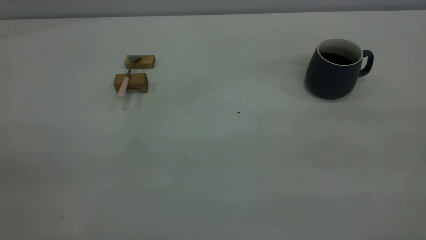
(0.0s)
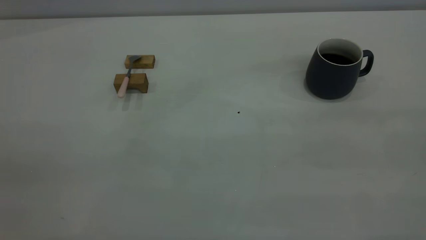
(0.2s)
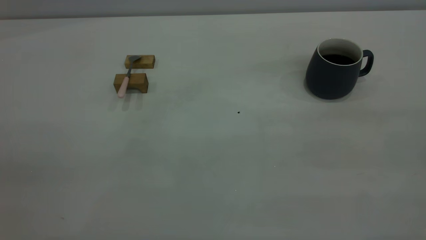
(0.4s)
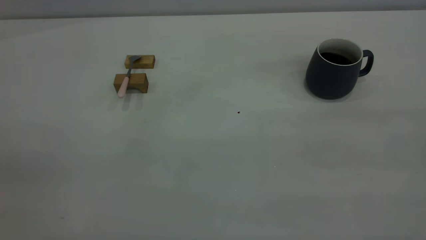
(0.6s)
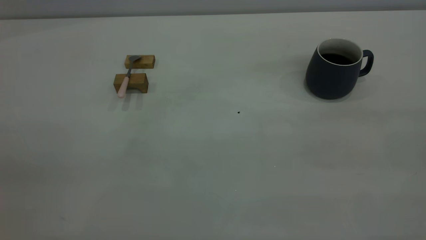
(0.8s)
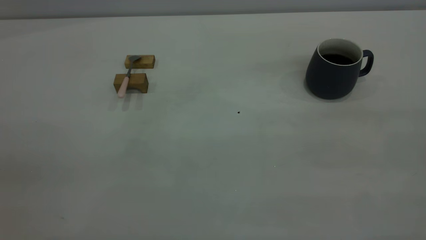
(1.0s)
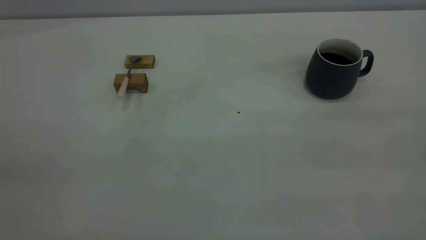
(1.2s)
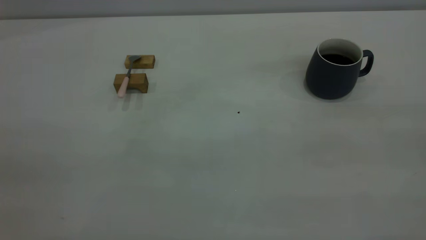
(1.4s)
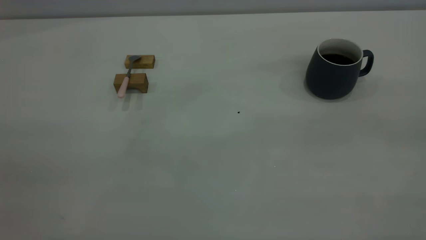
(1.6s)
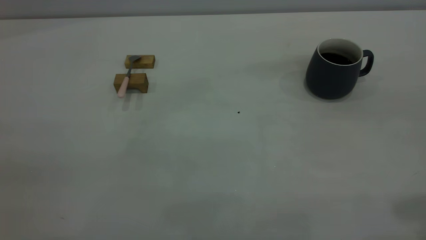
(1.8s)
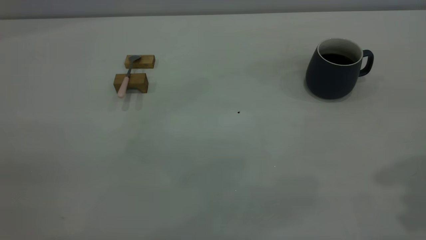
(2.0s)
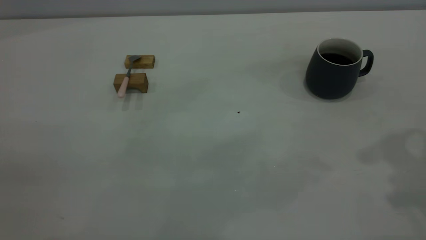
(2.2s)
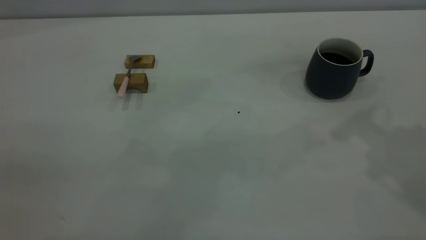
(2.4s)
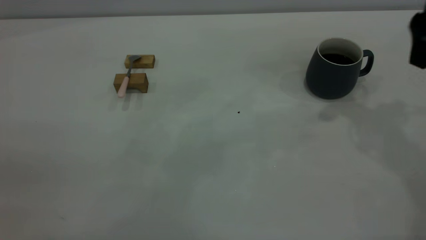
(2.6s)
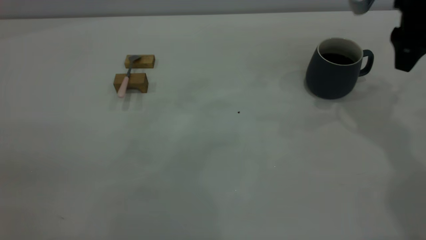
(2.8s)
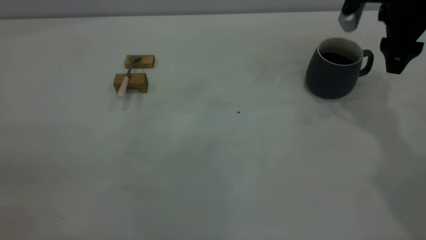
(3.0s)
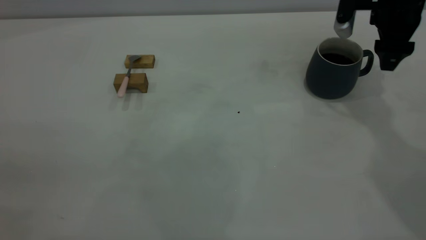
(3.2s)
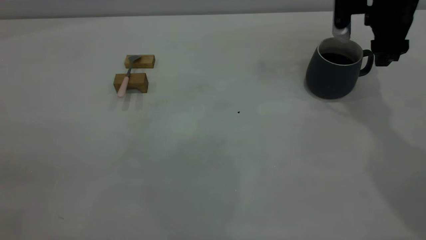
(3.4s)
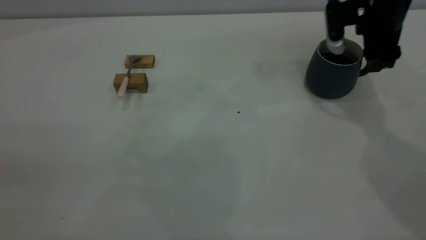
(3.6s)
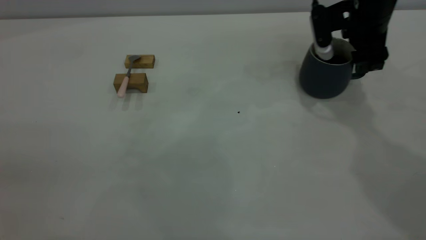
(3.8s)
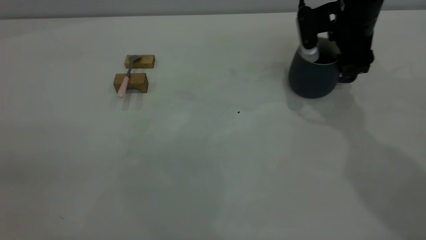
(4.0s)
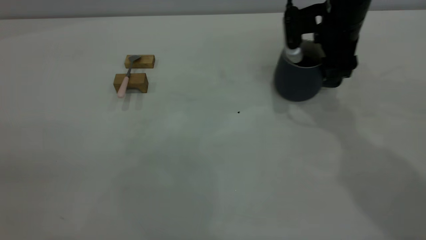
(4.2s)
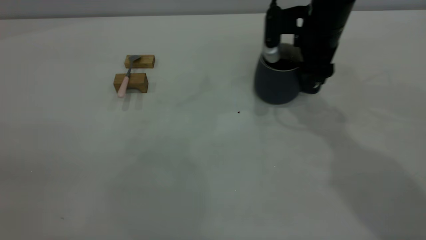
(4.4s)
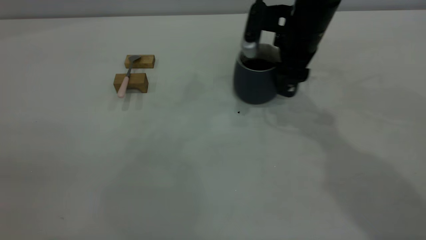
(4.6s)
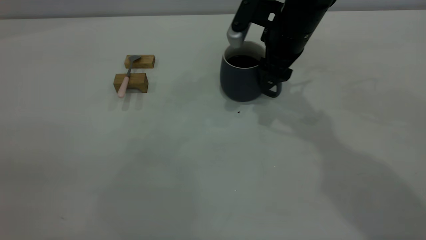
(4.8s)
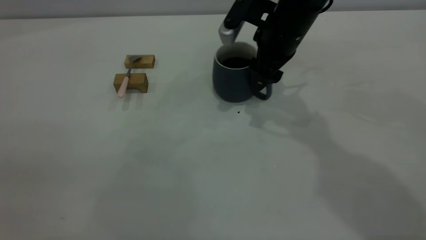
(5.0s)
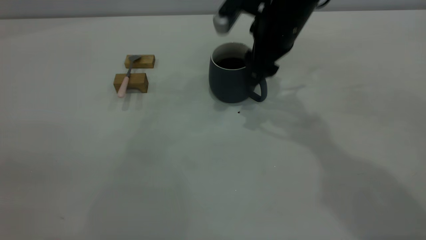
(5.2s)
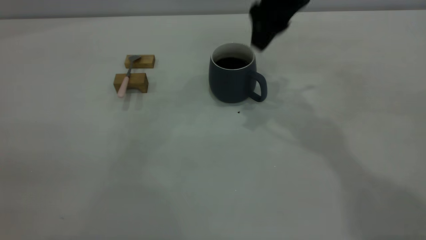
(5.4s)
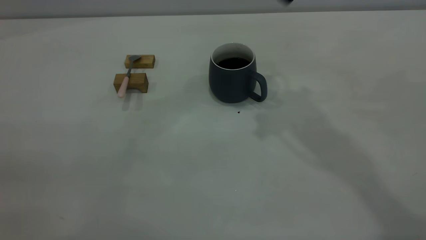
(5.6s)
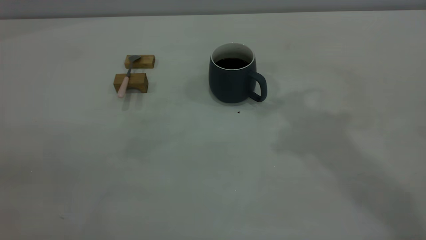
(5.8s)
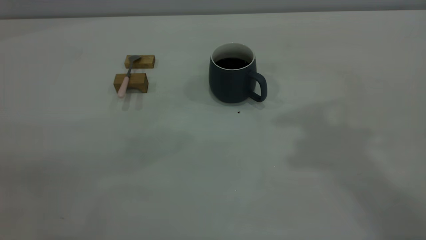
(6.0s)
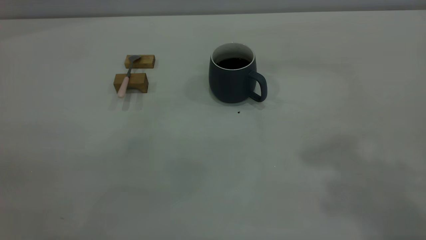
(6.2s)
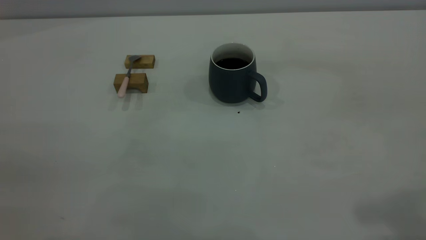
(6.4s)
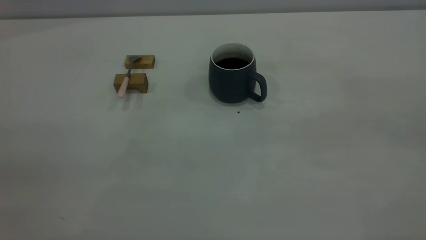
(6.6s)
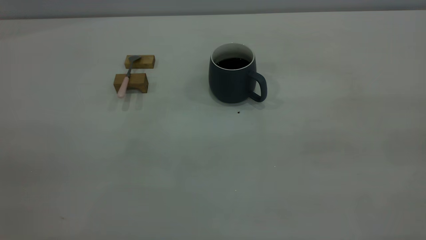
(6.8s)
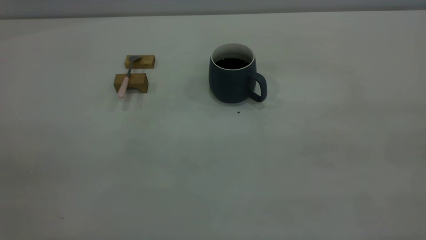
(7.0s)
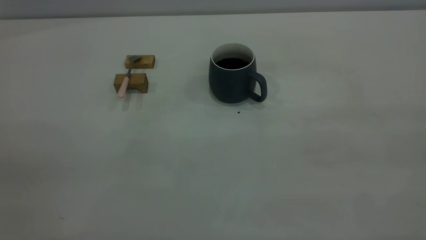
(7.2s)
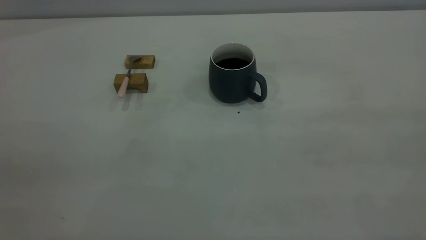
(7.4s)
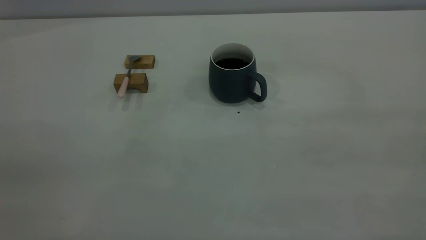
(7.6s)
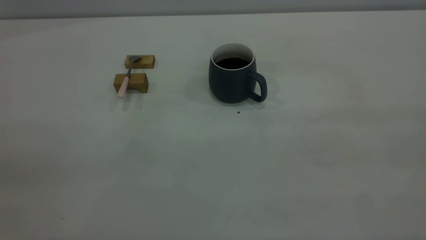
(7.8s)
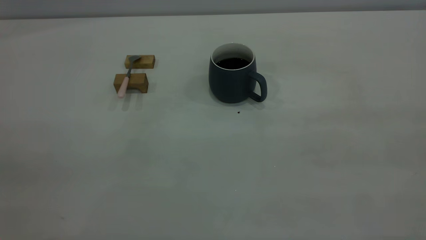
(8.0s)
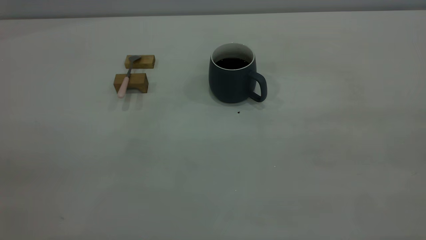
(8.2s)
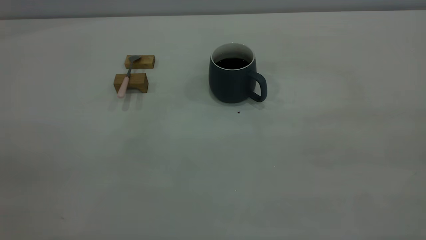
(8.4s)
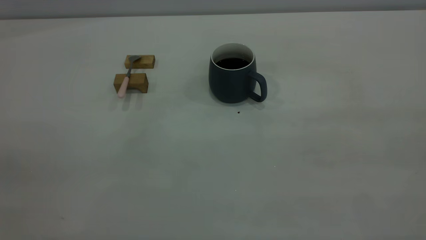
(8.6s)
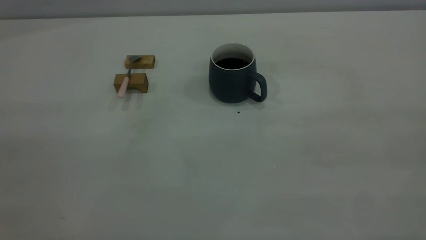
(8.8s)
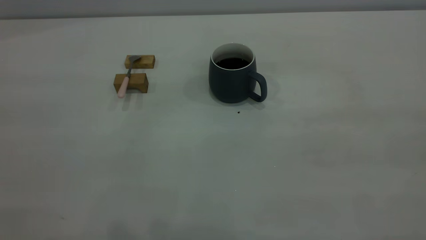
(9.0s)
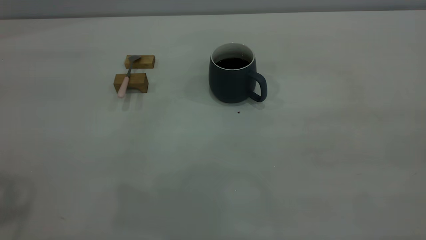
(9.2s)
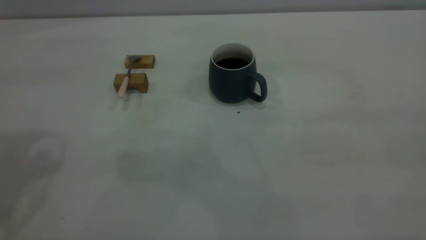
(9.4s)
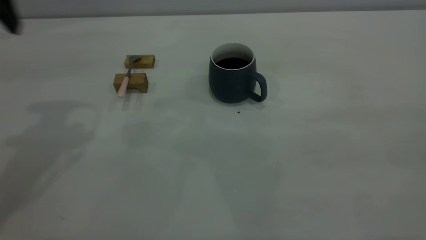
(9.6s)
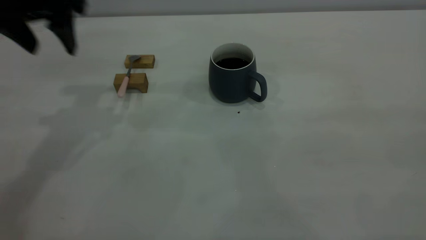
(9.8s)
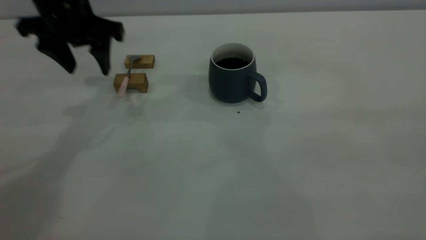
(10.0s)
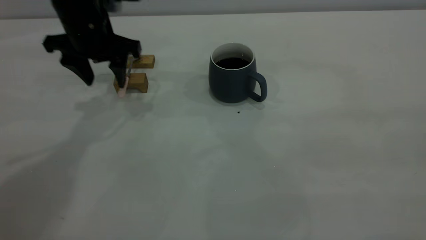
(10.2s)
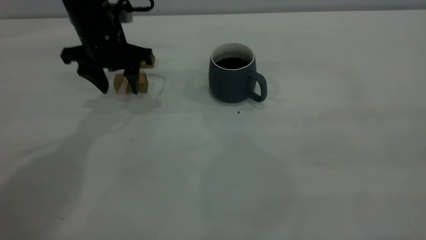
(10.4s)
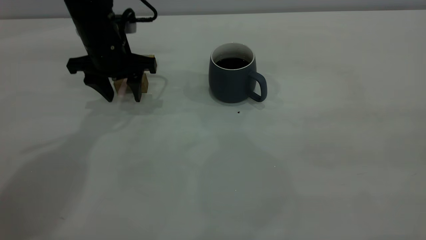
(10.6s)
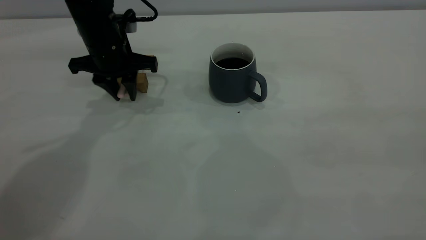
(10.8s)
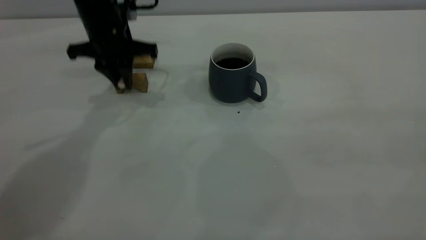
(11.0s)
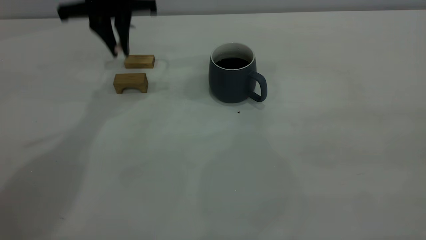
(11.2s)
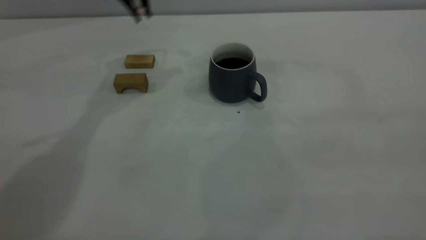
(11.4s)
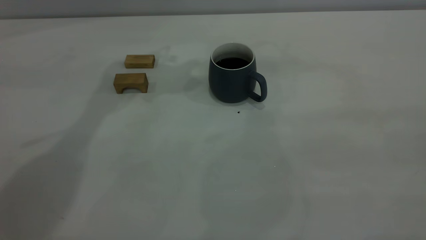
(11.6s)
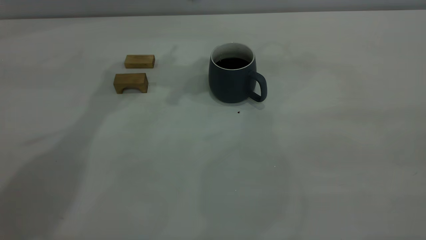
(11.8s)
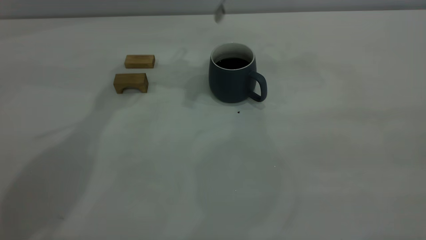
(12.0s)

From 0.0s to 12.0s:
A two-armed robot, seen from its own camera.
Step, from 0.0s to 5.2s: Move the cup with coffee to the center of view.
Step, from 5.4s to 11.0s: Pick up the spoon.
From 1.6s to 3.0s: The right gripper travels forward and downward by about 40 cm.
From 3.0s to 4.4s: The right gripper heads to the left, covering roughly 10 cm.
From 4.4s to 6.0s: The right gripper is displaced upward and backward by approximately 35 cm.
From 9.0s to 10.4s: The left gripper travels forward and downward by approximately 40 cm.
From 10.4s to 12.0s: The left gripper goes approximately 15 cm upward, to the right and forward, and closes its fingers.

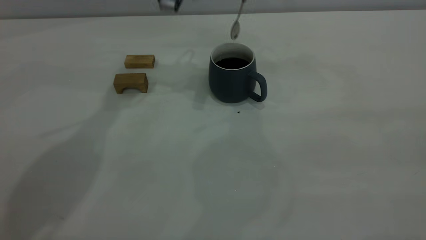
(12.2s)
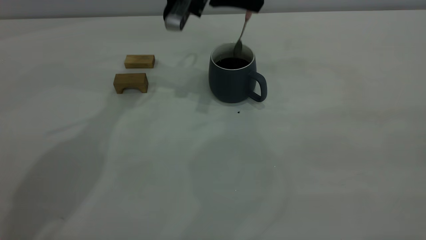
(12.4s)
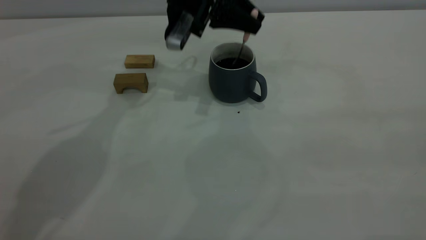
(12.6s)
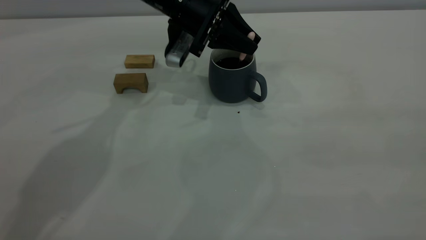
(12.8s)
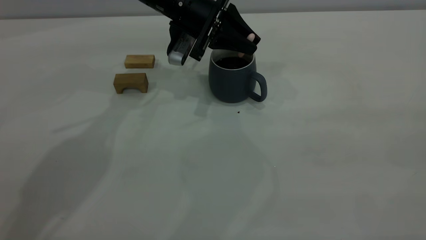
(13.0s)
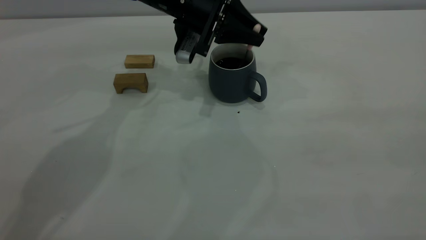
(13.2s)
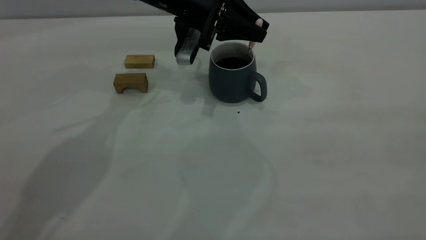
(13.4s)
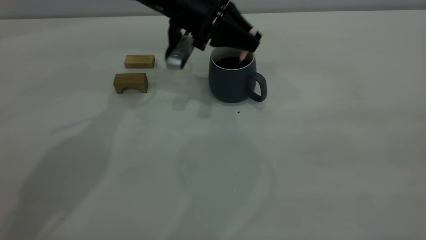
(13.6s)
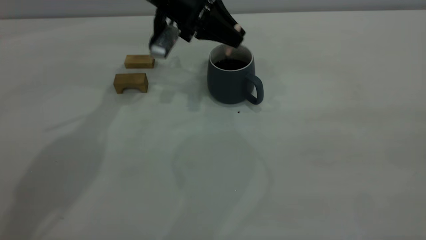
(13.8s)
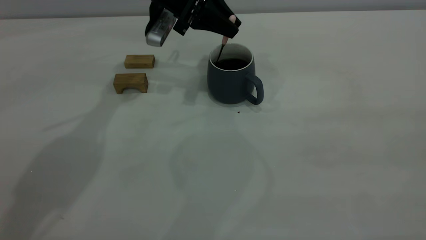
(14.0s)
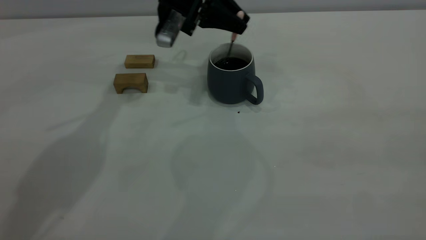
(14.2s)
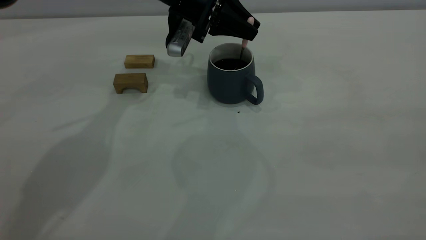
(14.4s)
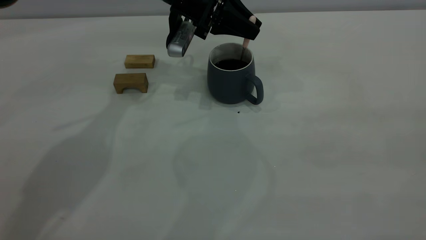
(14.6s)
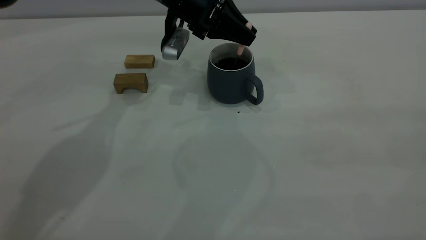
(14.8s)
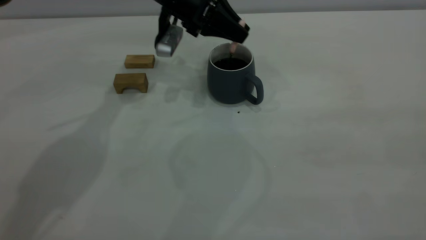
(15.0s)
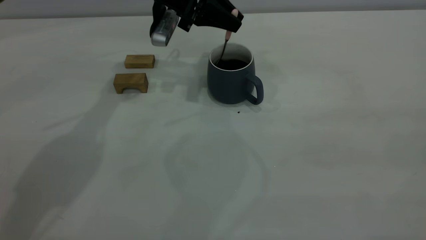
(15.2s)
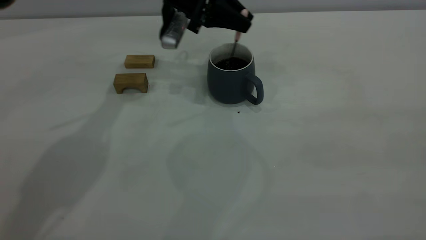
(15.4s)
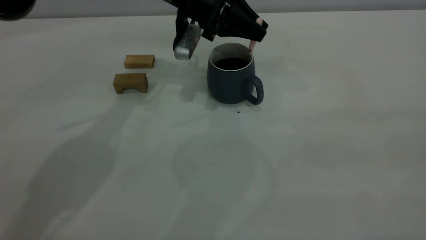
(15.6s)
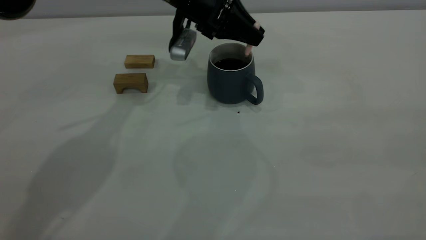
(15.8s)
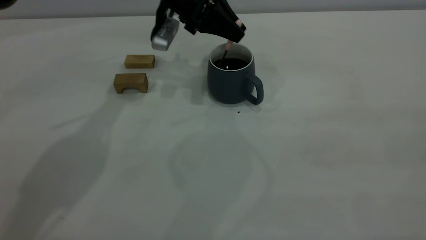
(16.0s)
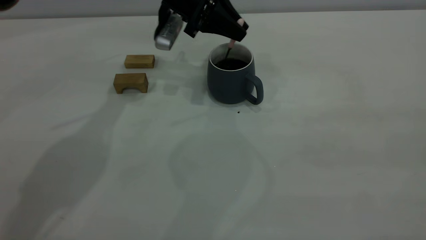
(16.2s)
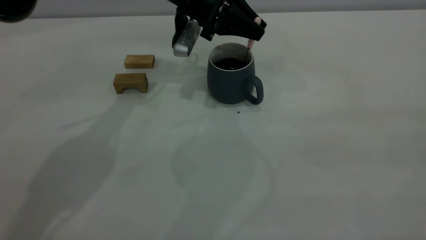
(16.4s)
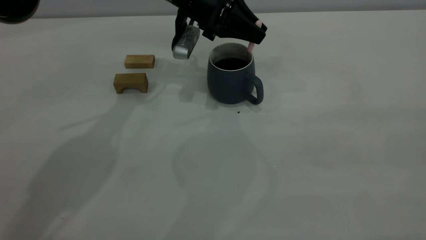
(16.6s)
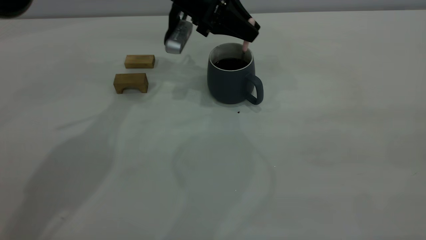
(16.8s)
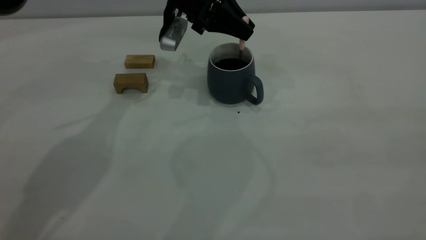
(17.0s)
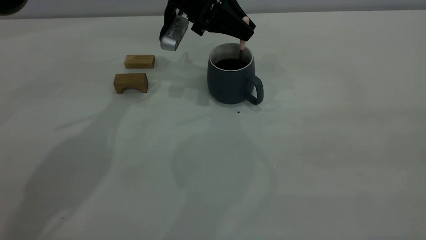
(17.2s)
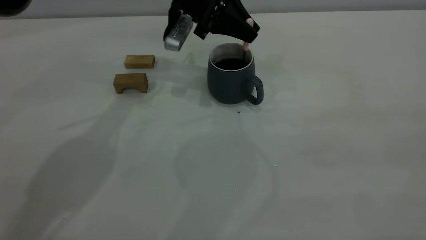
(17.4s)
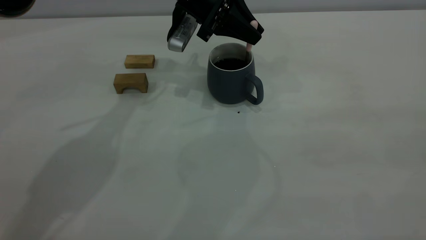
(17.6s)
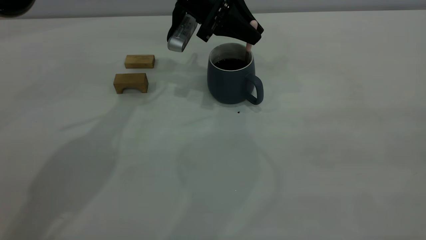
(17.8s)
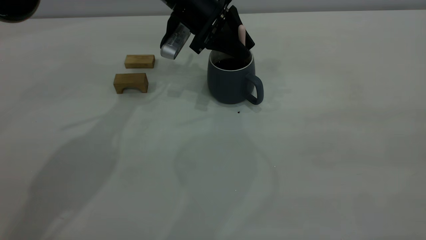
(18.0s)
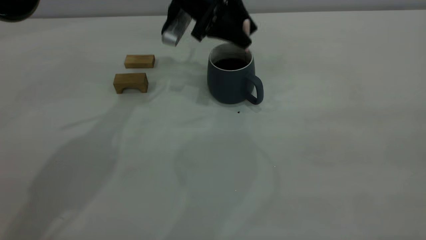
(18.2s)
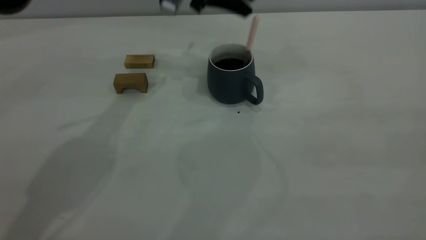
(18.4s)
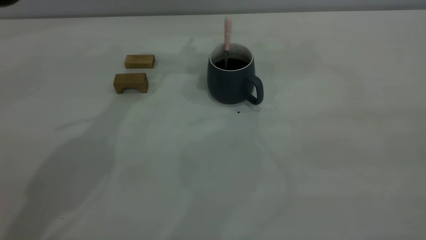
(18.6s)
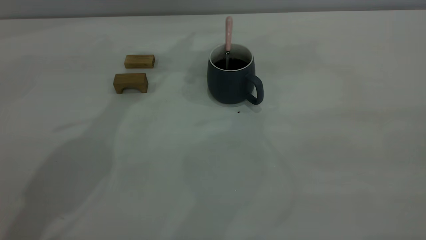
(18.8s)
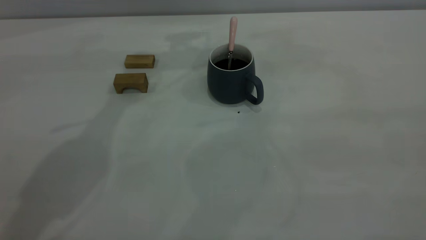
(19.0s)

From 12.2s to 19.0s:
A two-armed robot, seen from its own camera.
Step, from 12.2s to 18.4s: Stir the coffee in the cup.
From 12.2s to 13.6s: The left gripper shifts about 10 cm downward.
From 13.6s to 17.6s: The grippers move only a little.
From 17.6s to 19.0s: The left gripper heads upward, covering about 15 cm, and opens up.
